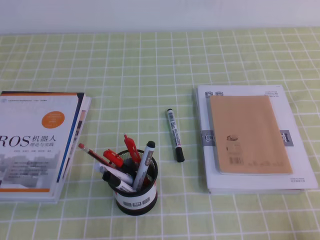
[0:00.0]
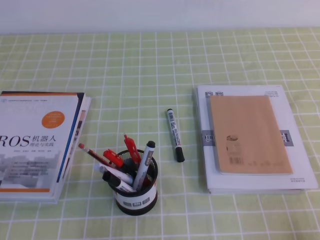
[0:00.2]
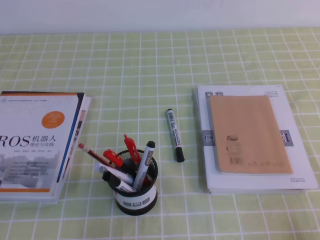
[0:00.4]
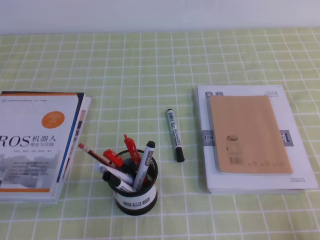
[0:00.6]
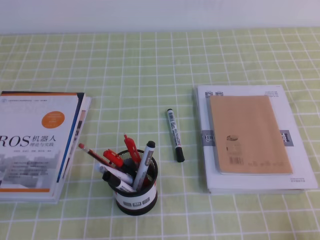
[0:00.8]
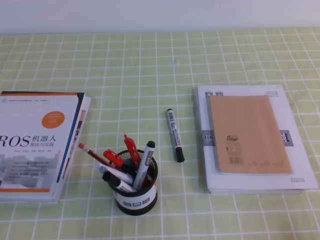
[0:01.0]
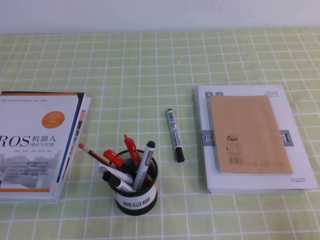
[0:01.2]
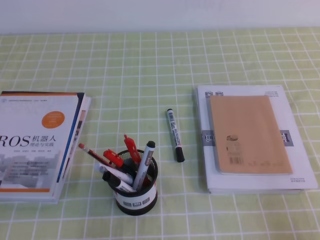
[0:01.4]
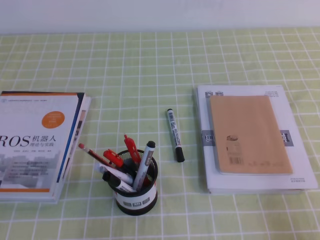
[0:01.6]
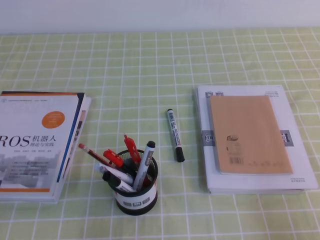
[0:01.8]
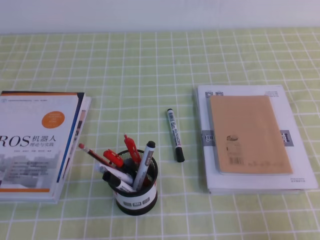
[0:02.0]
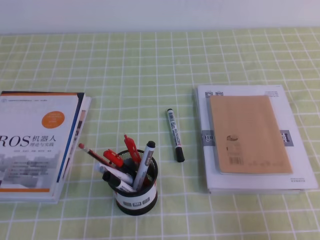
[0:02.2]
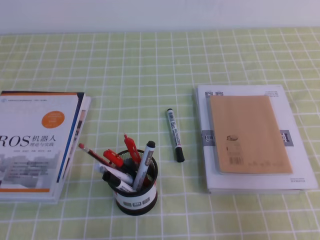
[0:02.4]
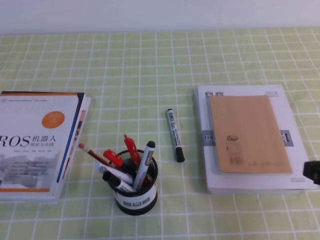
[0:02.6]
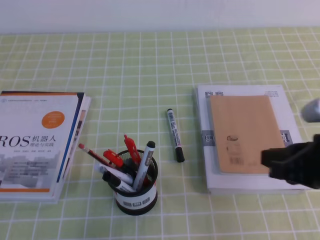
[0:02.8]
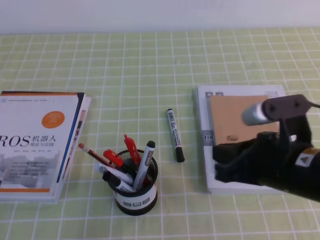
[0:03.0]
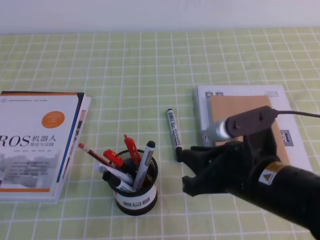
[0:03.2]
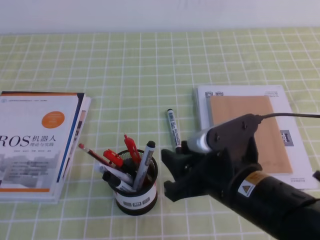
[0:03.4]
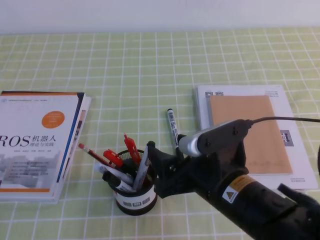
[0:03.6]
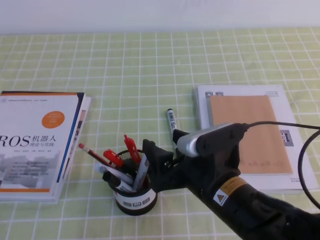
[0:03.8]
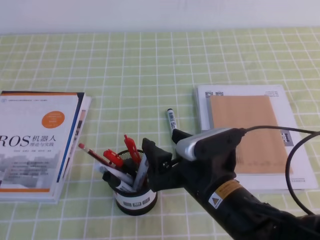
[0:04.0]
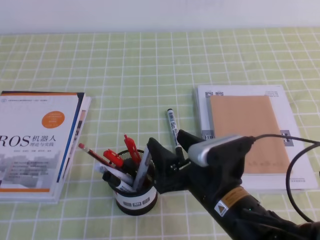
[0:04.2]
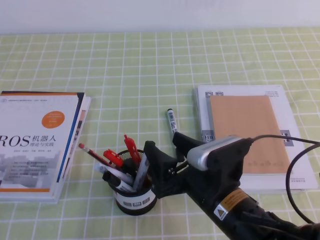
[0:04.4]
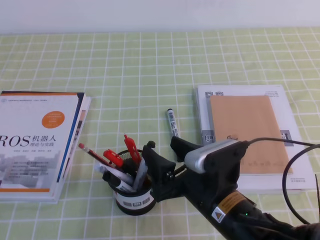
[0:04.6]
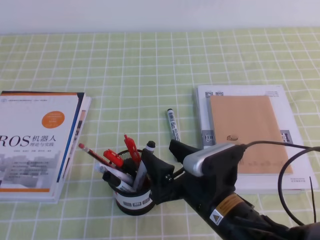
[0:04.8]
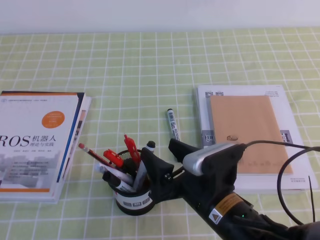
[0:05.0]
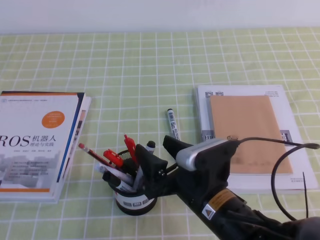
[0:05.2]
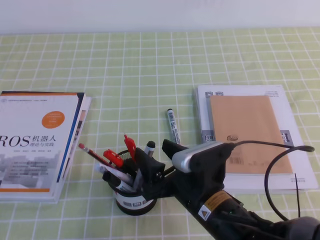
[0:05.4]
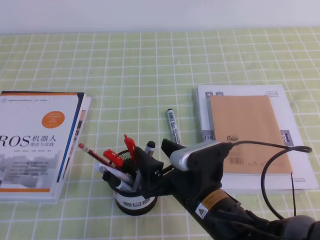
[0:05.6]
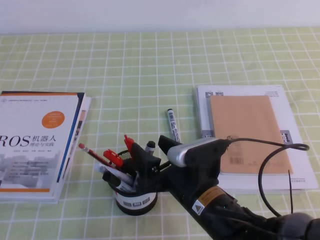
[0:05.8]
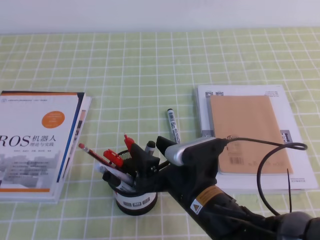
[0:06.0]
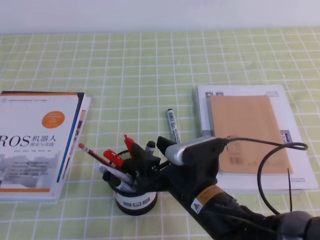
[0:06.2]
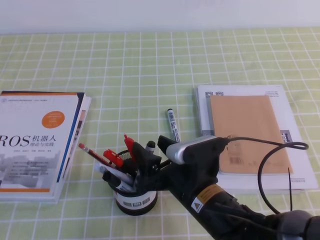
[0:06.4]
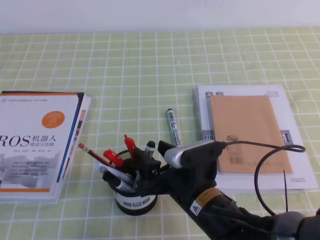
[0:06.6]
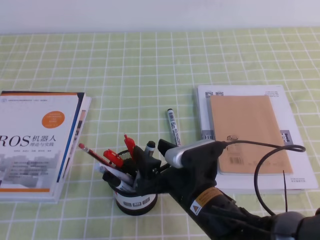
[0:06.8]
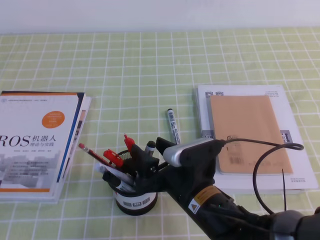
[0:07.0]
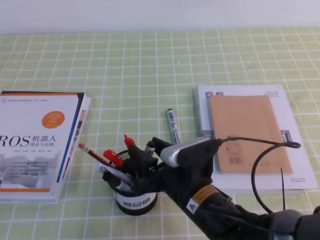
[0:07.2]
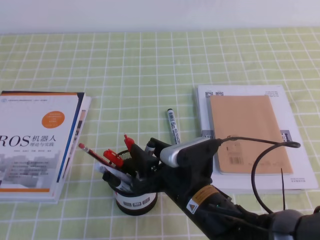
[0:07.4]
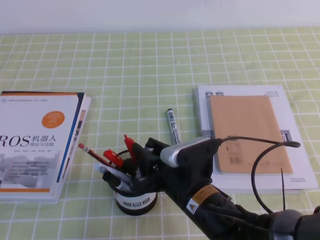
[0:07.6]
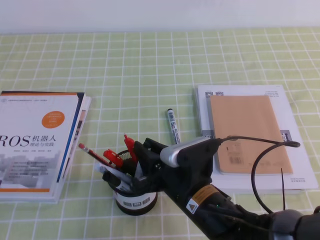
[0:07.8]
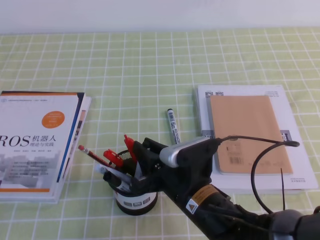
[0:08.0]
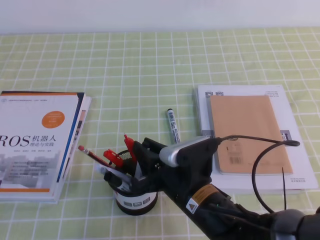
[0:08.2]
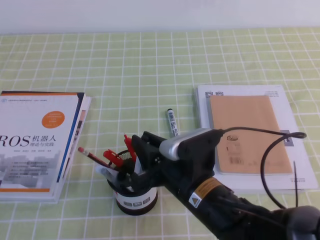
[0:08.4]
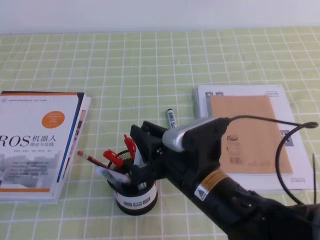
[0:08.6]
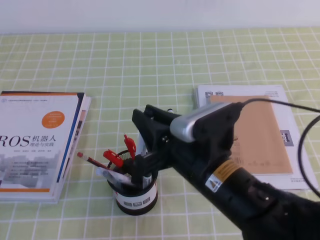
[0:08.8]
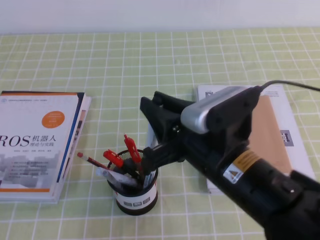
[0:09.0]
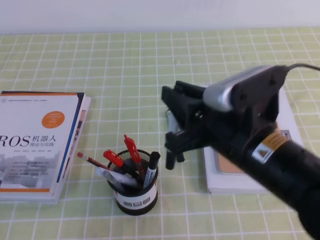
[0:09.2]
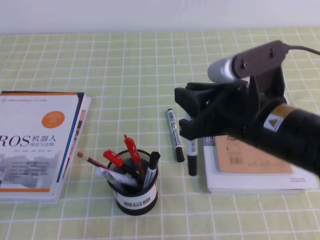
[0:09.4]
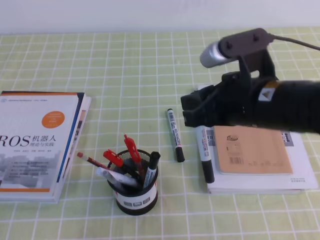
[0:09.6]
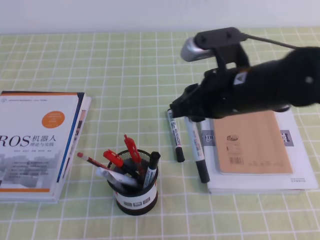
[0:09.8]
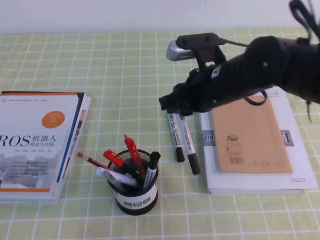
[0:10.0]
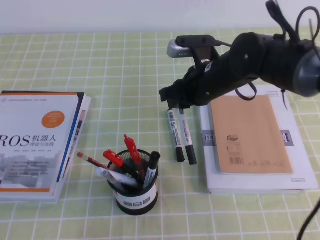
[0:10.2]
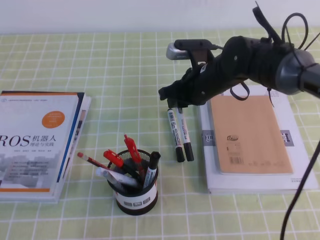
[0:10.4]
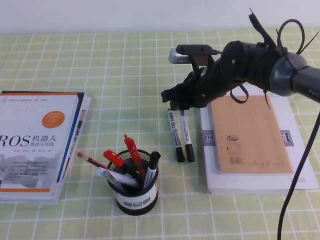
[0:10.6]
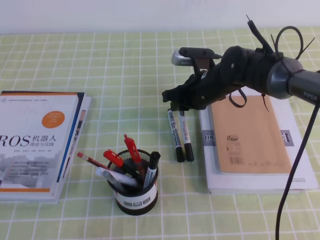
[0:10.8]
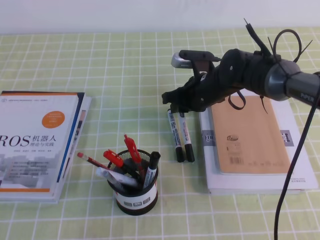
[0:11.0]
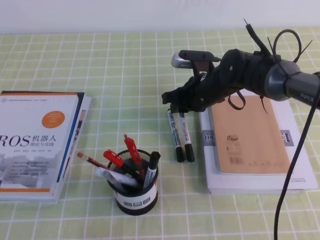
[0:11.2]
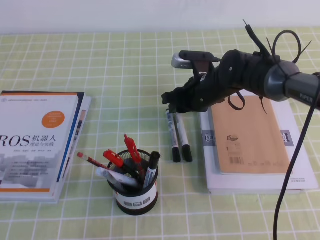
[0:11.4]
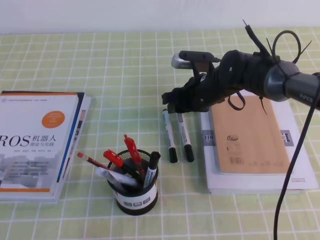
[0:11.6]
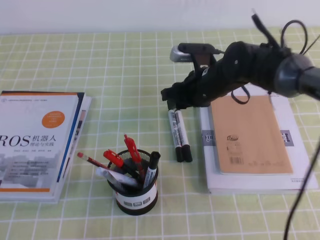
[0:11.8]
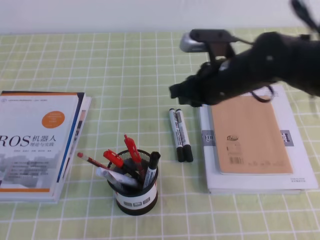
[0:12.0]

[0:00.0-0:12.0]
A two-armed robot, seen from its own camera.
0:01.6 to 0:03.0: The right gripper heads to the left, forward and upward, covering some 20 cm.
0:03.0 to 0:04.4: The right gripper shifts roughly 15 cm to the left and downward, and opens its fingers.
0:04.4 to 0:06.0: The grippers move only a little.
0:06.0 to 0:07.6: The right gripper closes up.
0:07.6 to 0:09.0: The right gripper heads upward, covering approximately 10 cm.
0:09.0 to 0:10.4: The right gripper moves forward, approximately 20 cm.
0:10.4 to 0:12.0: The right gripper shifts by approximately 5 cm.

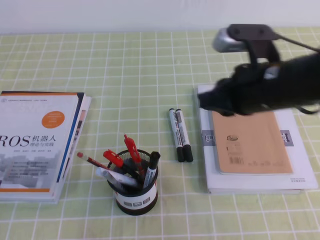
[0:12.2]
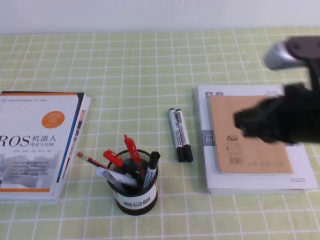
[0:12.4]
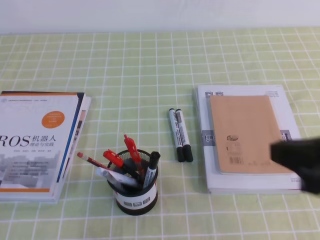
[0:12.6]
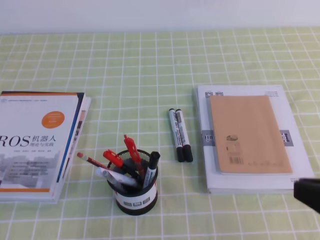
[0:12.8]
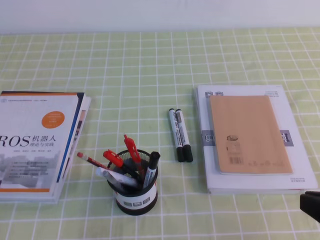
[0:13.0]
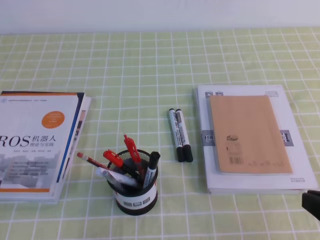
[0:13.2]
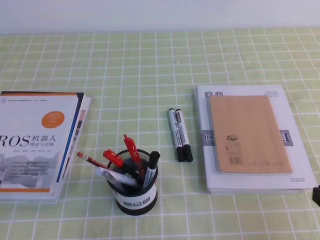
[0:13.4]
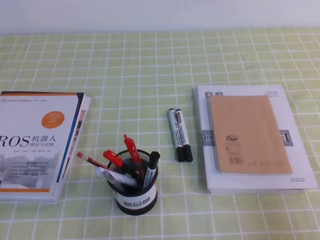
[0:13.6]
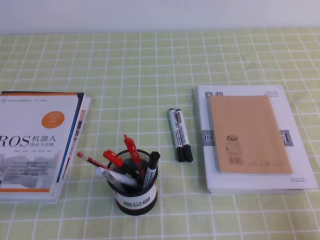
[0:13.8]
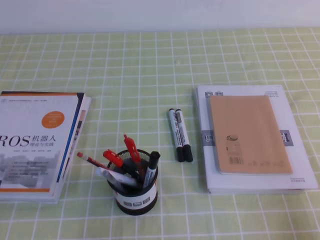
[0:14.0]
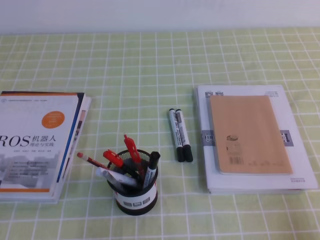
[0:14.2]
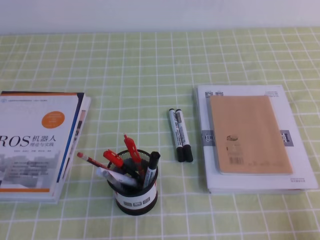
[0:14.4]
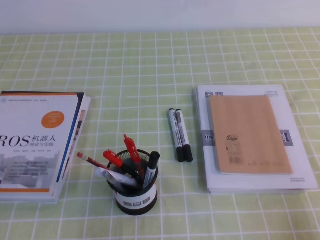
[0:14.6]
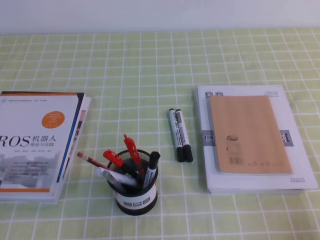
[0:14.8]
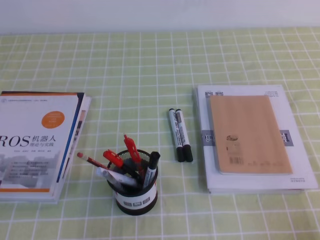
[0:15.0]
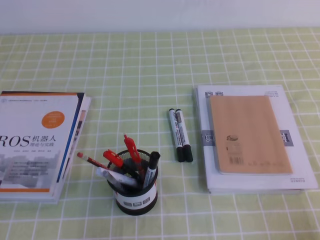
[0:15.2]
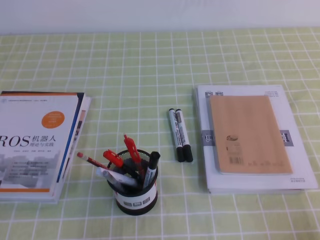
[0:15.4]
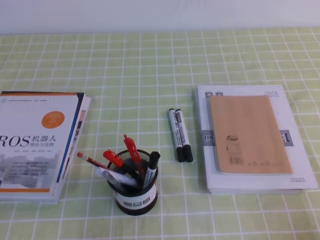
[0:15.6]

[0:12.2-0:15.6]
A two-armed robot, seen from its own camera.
Step, 0:12.2 to 0:15.6: Pick up the pen from the pen holder.
0:12.2 to 0:13.8: The right gripper is displaced backward, to the right and downward by about 30 cm.
